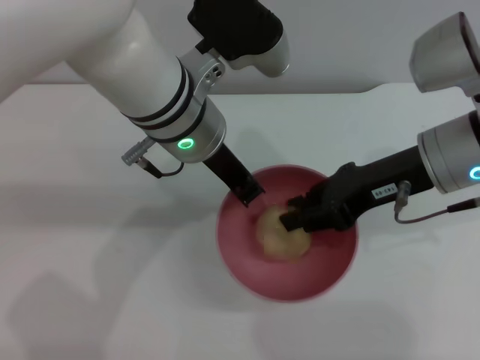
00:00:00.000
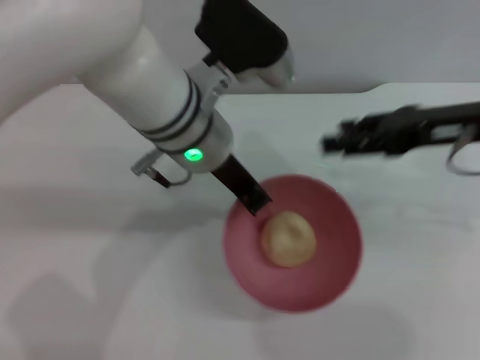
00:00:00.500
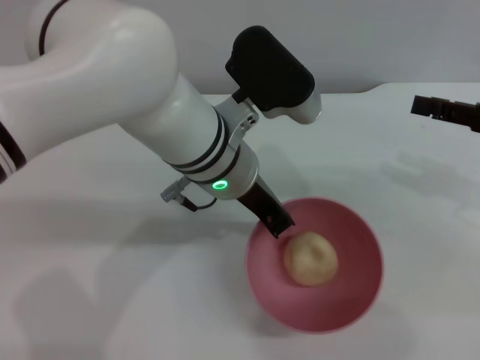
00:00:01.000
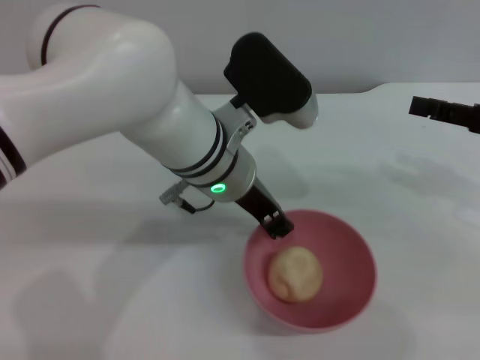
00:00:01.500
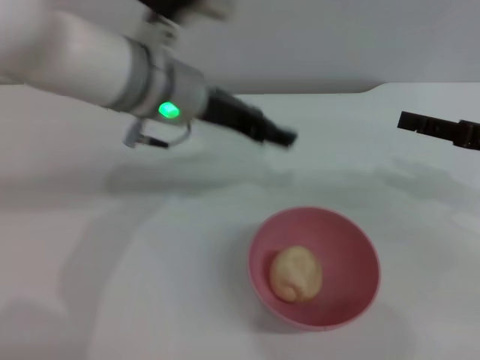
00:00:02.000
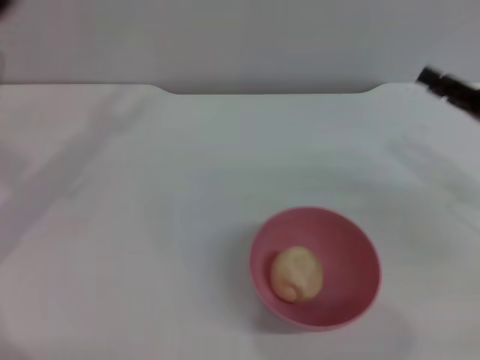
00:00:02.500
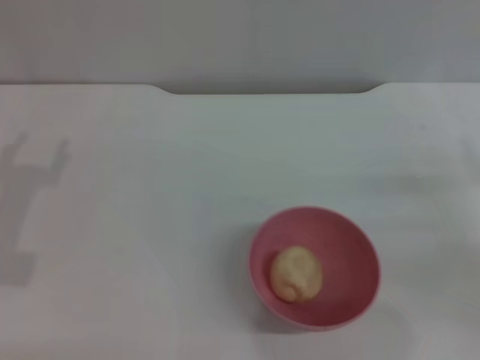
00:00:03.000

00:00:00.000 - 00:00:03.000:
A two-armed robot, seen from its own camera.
Task of the whole recording: put the egg yolk pastry into the pink bowl and pour it out repeatedly.
Step, 00:00:00.500 - 00:00:01.500: Place the bowl on the table.
00:00:00.000 - 00:00:01.500: The right gripper is displaced to the right by about 15 cm, and opens its fingers; the left gripper moves approximately 5 cm.
00:00:01.500 - 00:00:03.000: The left gripper is displaced to the left by some 30 cm, and opens up. The right gripper travels downward by about 10 cm.
